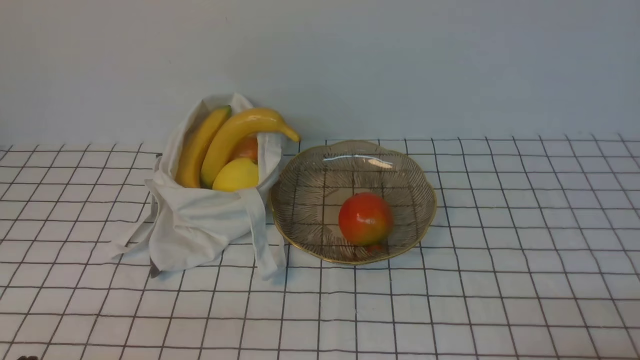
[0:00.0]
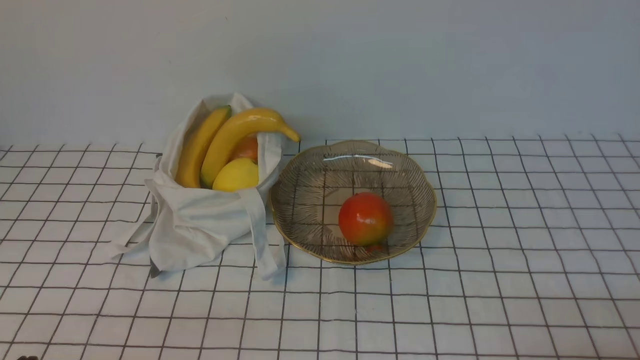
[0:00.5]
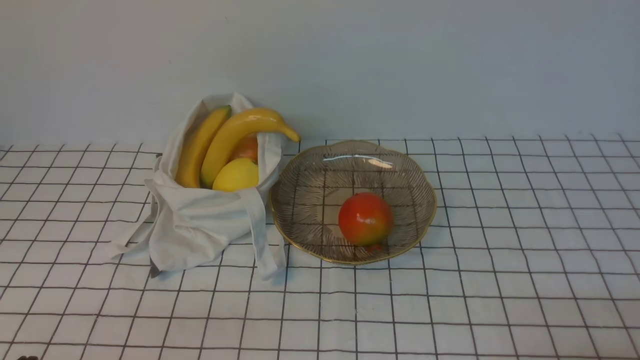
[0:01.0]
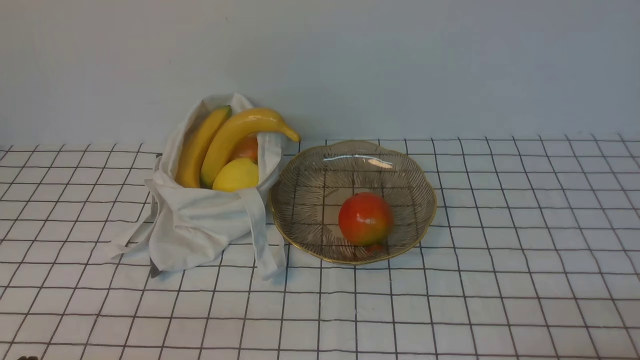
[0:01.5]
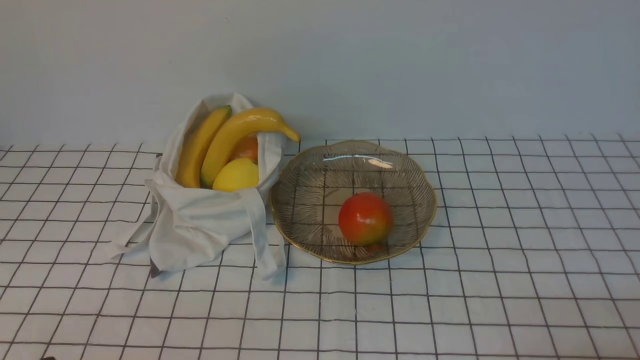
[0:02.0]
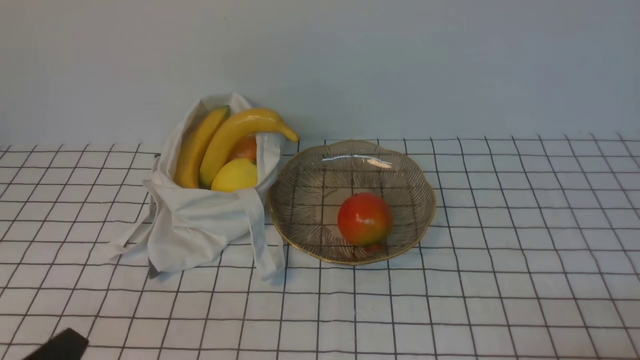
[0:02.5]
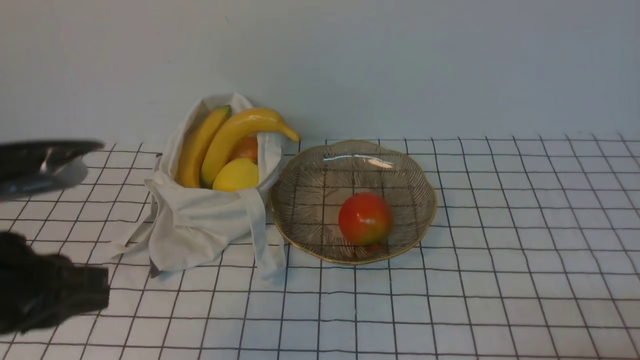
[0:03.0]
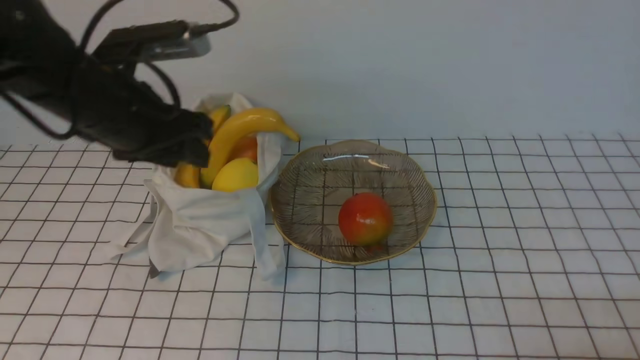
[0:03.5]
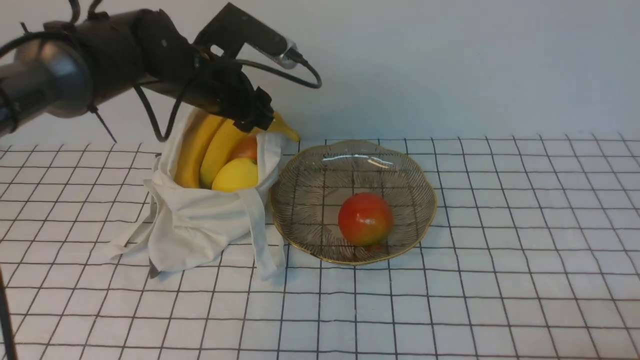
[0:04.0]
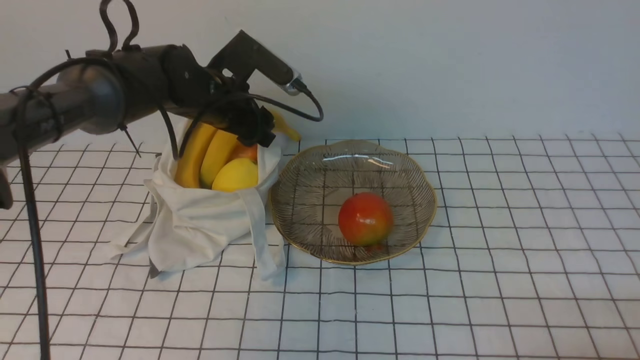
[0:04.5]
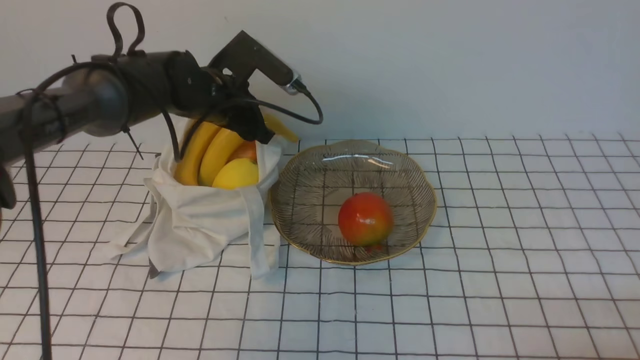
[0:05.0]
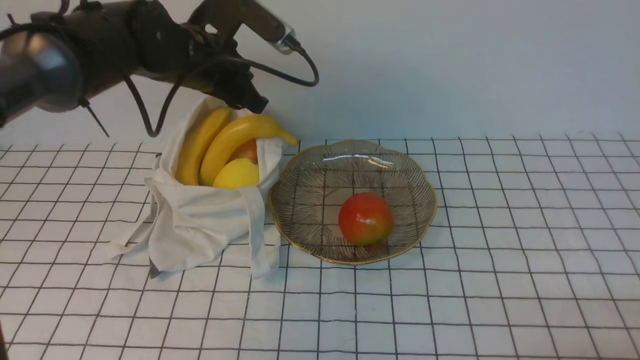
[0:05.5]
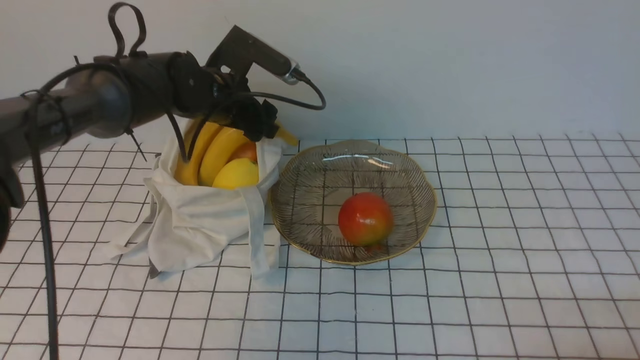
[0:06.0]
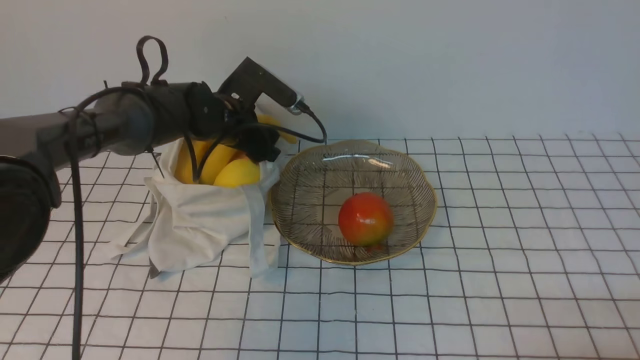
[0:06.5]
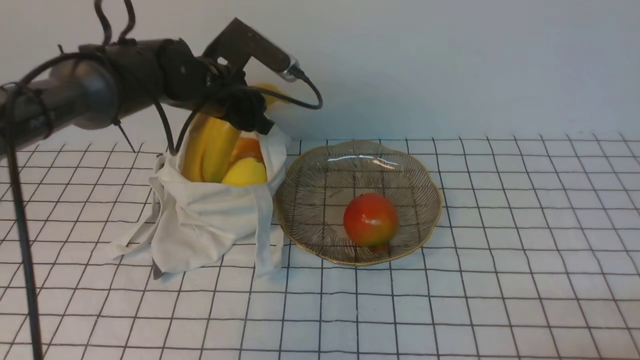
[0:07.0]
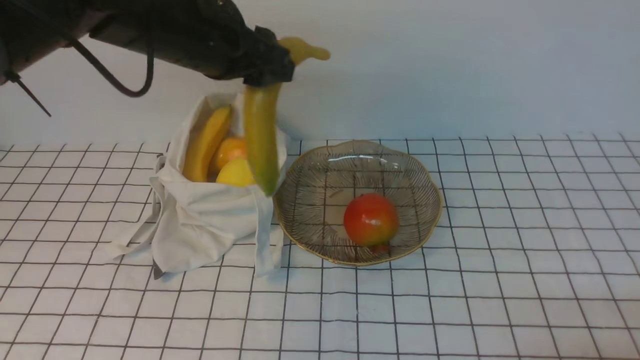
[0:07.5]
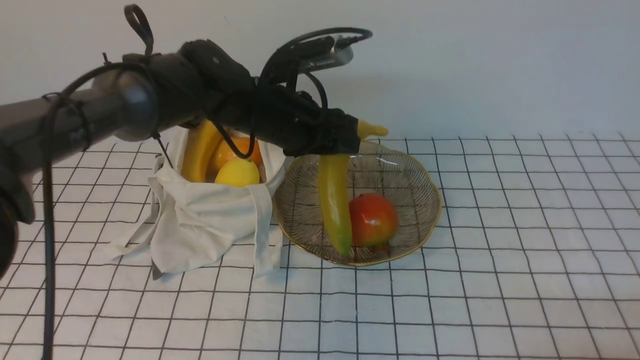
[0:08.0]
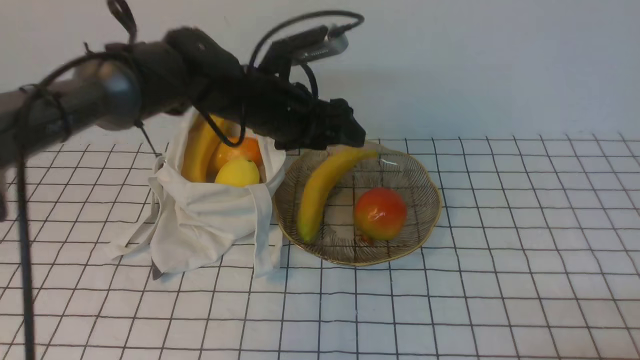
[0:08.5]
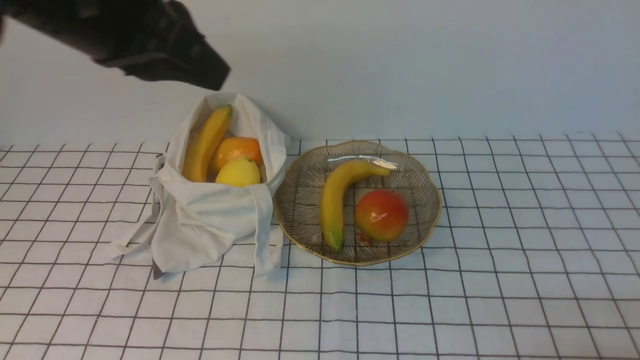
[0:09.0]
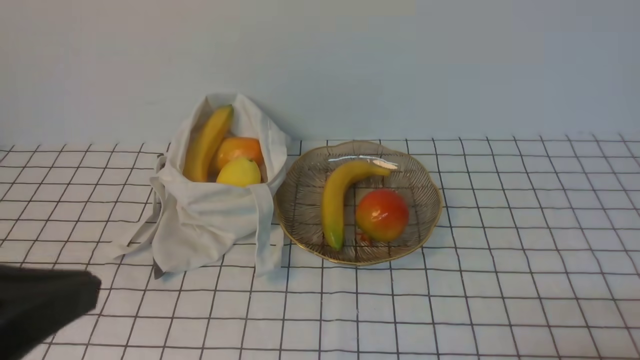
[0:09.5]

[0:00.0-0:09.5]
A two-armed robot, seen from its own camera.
Step, 0:00.0 to 0:07.0: use the left arm to grab a banana from the bag.
Step, 0:07.5 to 0:08.5: use the left arm to put the banana into the empty plate on the right.
0:02.0 to 0:04.0: The left gripper heads forward, covering about 40 cm, and opens.
0:04.0 to 0:05.5: The left gripper closes up.
0:05.5 to 0:07.5: The left gripper goes downward and returns, roughly 10 cm each way, and opens up.
0:07.5 to 0:09.5: The left gripper heads backward, covering some 30 cm, and closes its fingers.

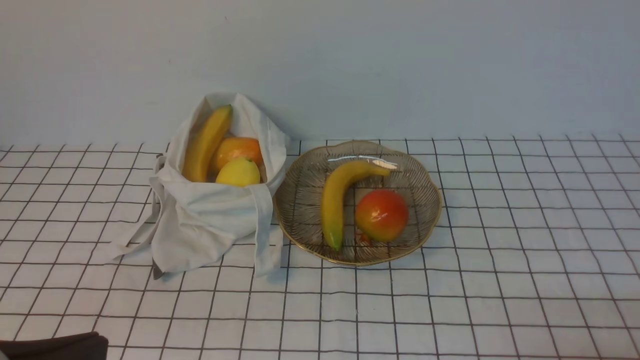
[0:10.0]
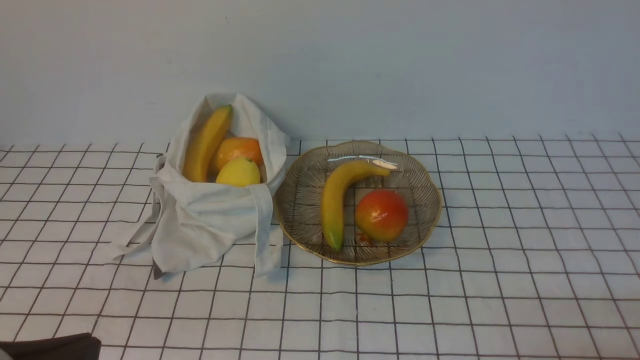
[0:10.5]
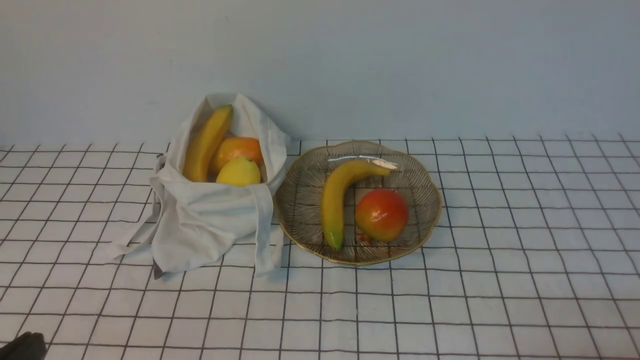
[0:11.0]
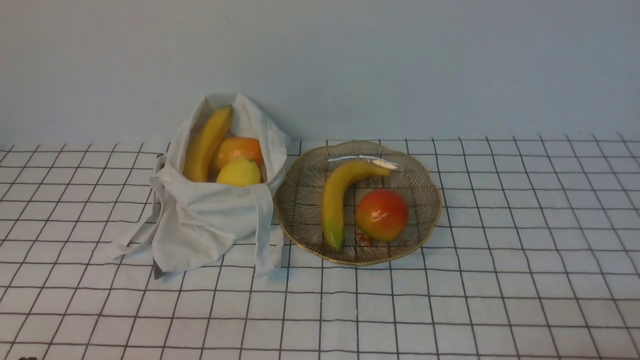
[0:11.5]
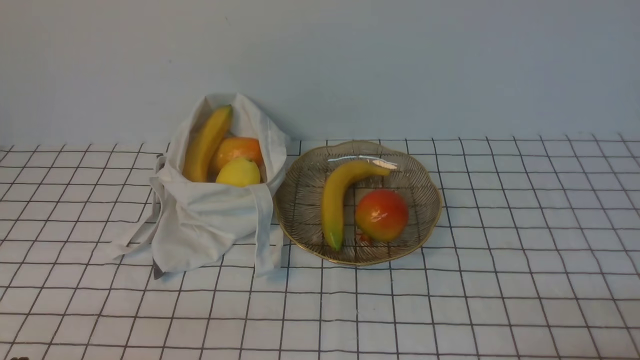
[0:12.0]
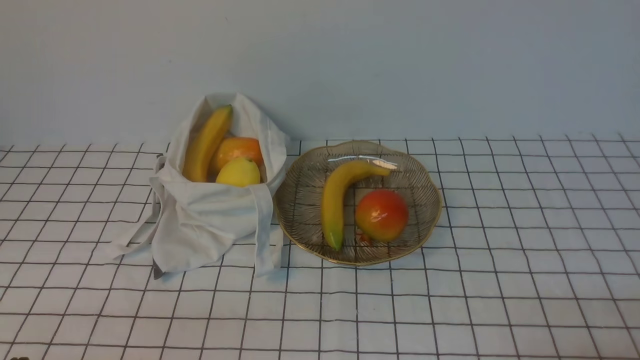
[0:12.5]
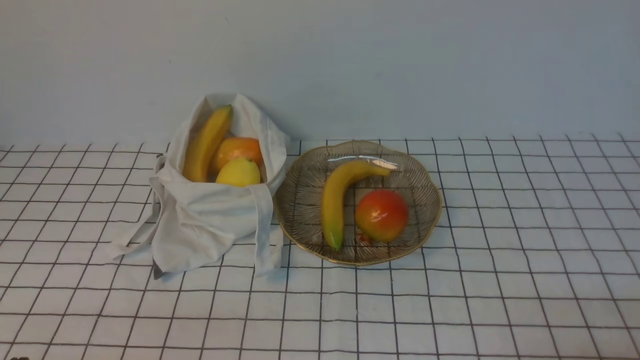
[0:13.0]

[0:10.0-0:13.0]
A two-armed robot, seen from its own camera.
0:10.0 to 0:11.5: The left gripper moves downward, roughly 15 cm.
0:11.5 to 0:13.0: The two grippers keep their place.

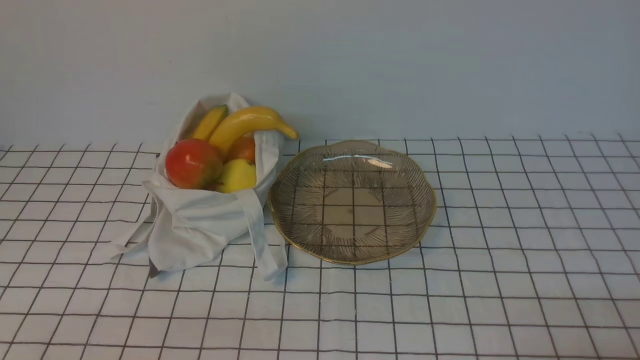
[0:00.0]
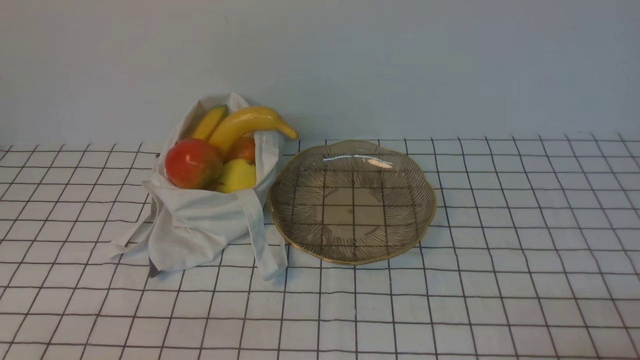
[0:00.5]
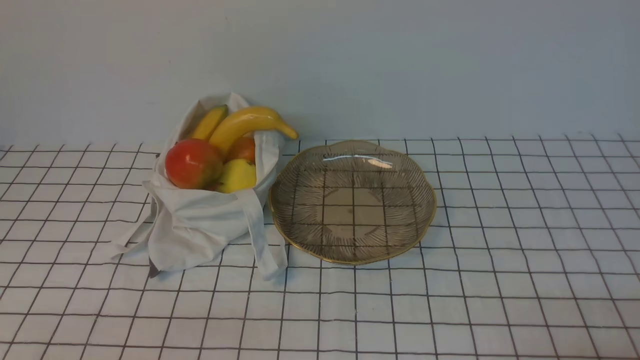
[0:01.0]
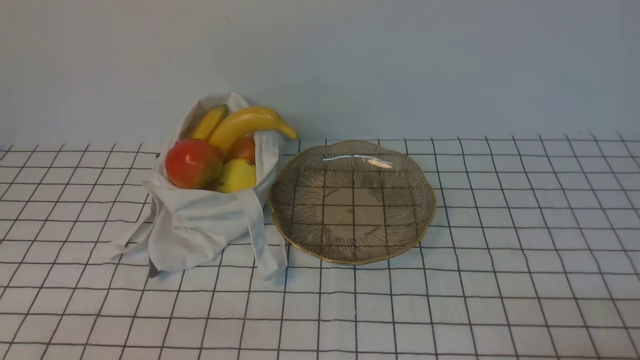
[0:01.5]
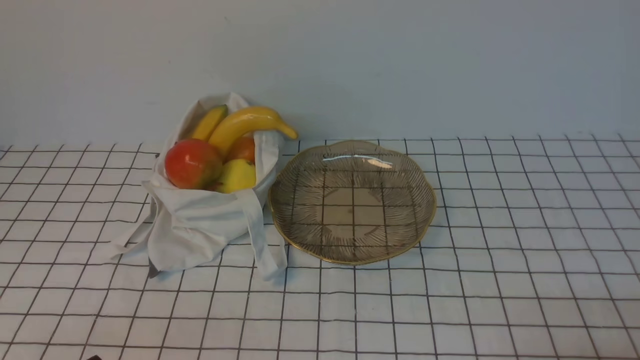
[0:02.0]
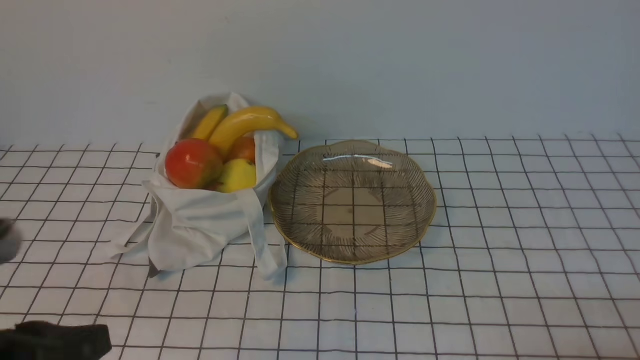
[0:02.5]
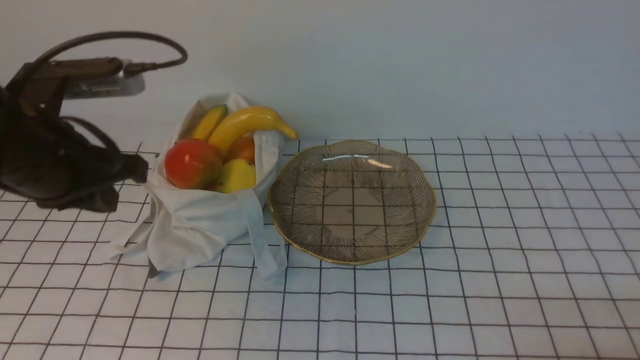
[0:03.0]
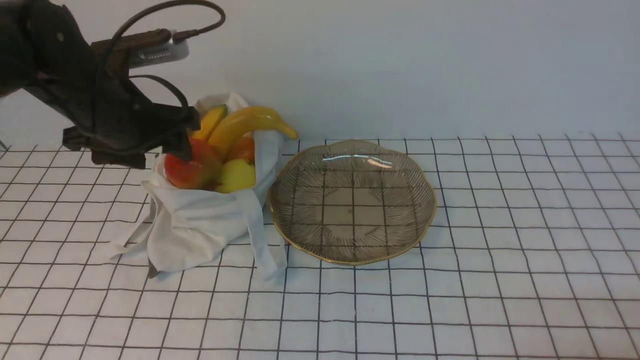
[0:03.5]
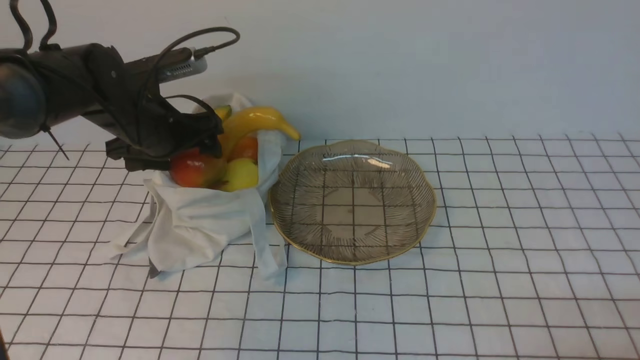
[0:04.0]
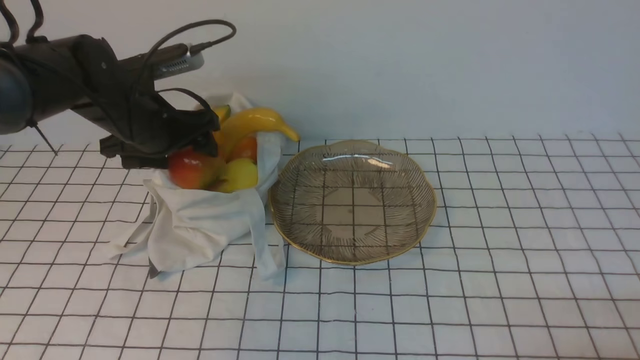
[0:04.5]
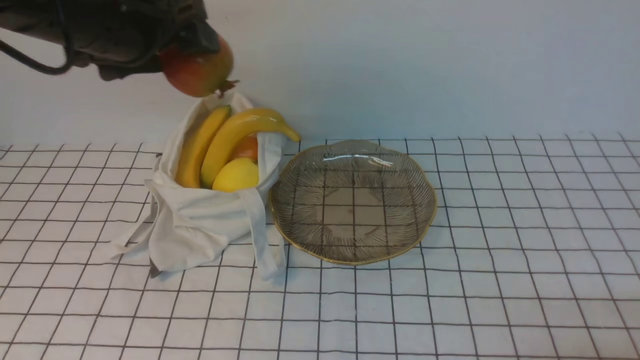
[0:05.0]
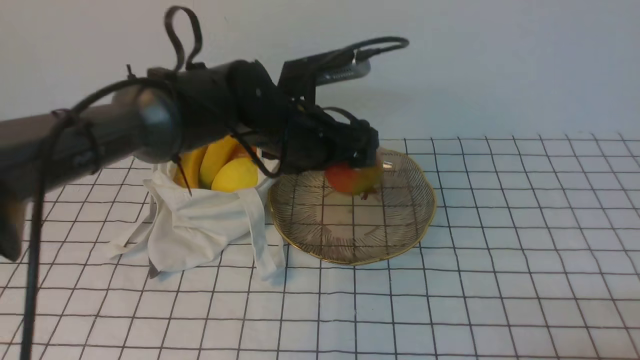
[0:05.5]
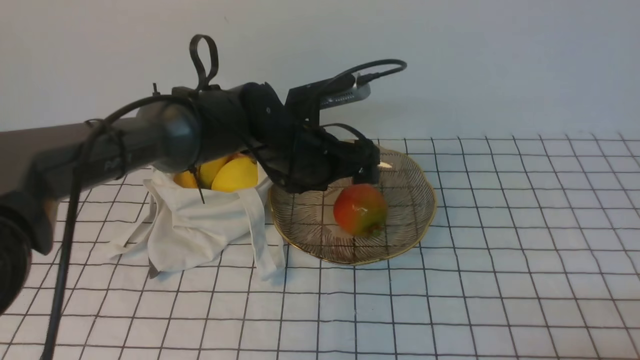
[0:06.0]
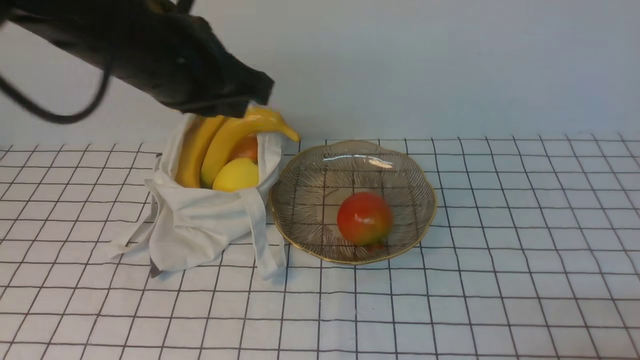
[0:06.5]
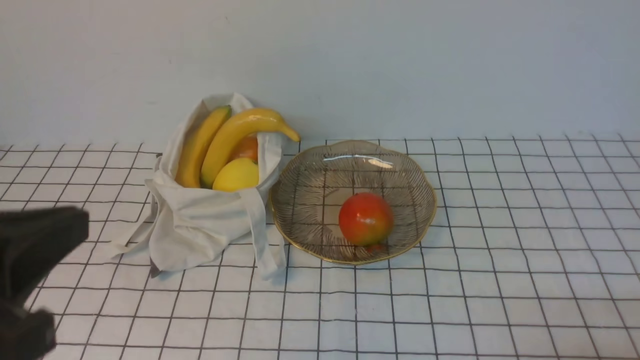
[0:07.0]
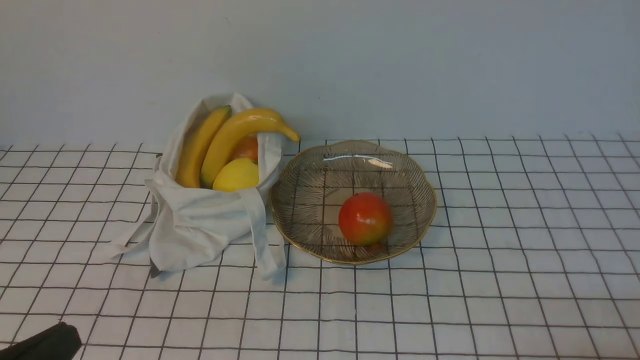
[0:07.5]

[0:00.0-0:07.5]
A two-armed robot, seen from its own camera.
Step, 0:00.0 to 0:04.0: use the left arm to grab a pomegranate from the bag.
Step, 0:04.5 to 0:05.5: use the left arm to put the pomegranate into the empty plate on the right.
0:02.0 to 0:04.0: The left gripper is displaced forward by some 35 cm, and opens.
0:04.0 to 0:05.5: The left gripper travels to the right by approximately 15 cm.
0:05.5 to 0:07.5: The left gripper travels backward and to the left by approximately 40 cm, and closes.
